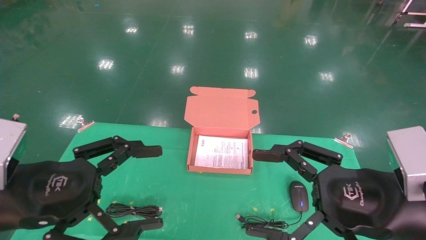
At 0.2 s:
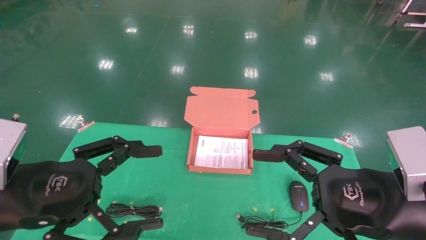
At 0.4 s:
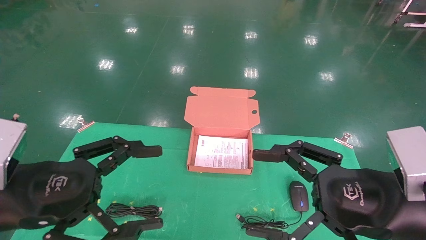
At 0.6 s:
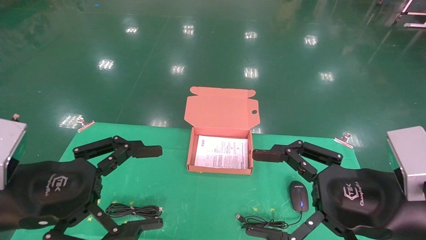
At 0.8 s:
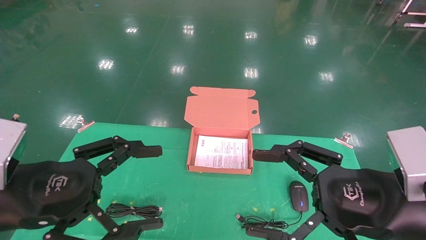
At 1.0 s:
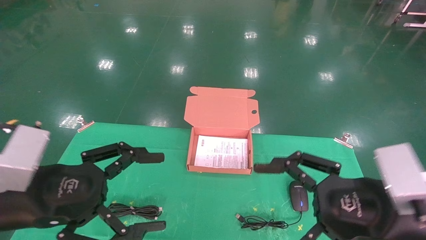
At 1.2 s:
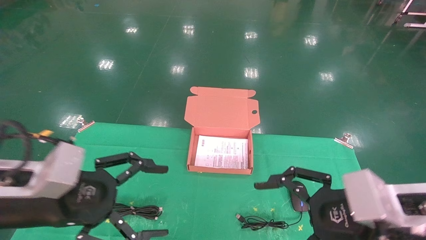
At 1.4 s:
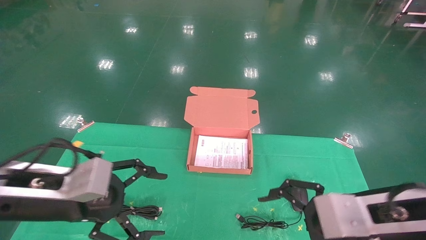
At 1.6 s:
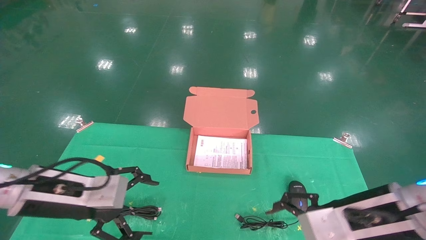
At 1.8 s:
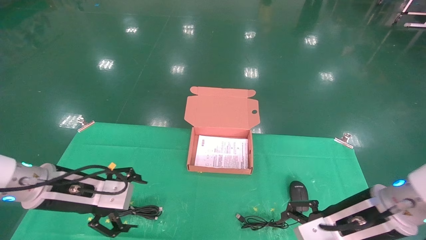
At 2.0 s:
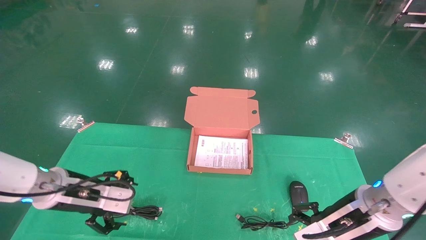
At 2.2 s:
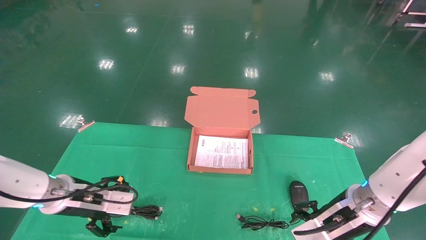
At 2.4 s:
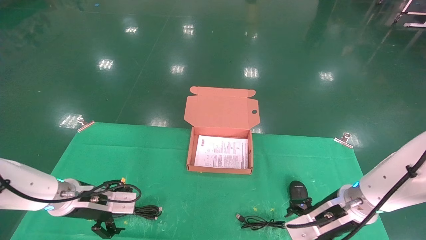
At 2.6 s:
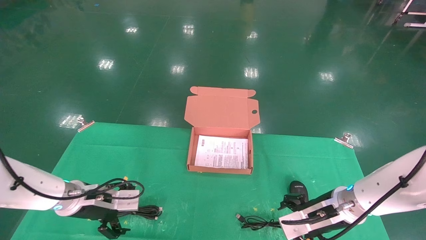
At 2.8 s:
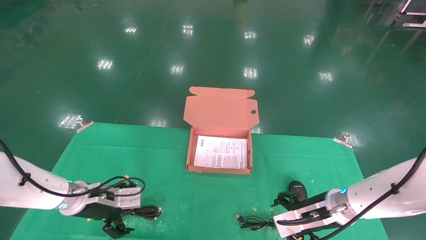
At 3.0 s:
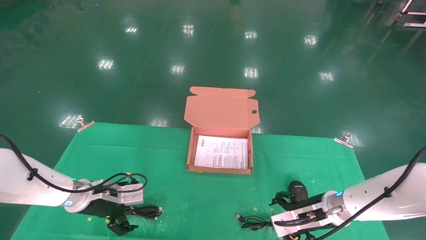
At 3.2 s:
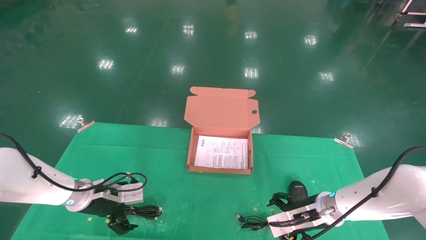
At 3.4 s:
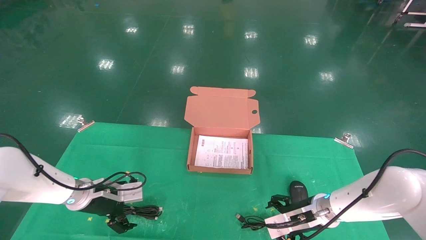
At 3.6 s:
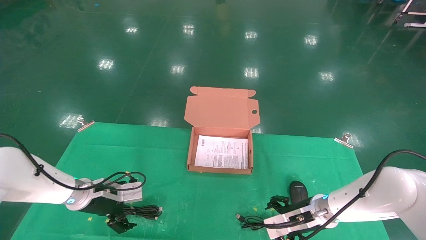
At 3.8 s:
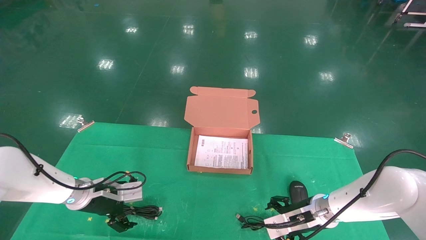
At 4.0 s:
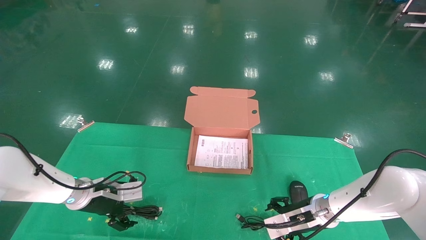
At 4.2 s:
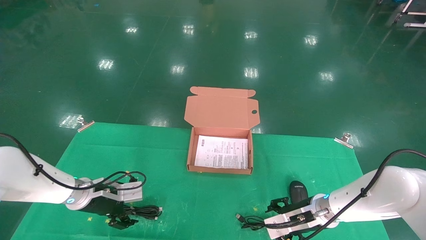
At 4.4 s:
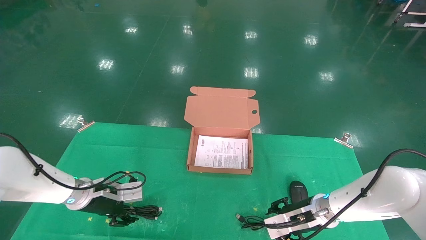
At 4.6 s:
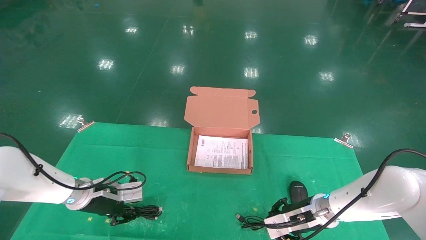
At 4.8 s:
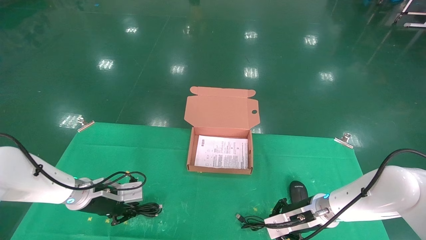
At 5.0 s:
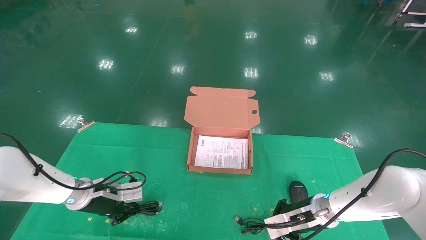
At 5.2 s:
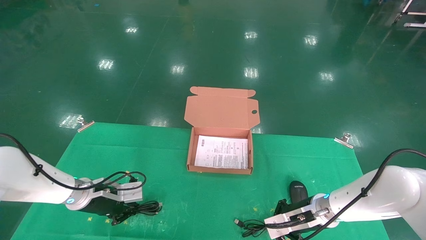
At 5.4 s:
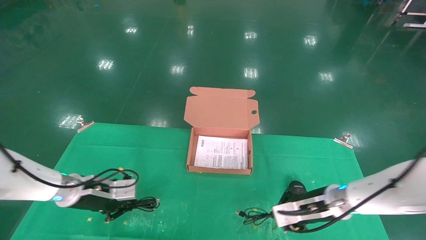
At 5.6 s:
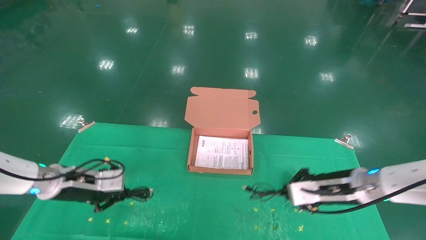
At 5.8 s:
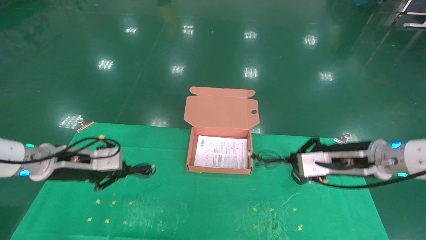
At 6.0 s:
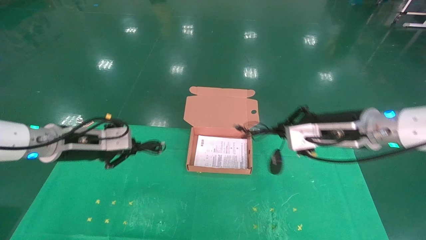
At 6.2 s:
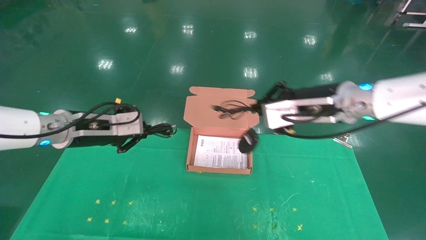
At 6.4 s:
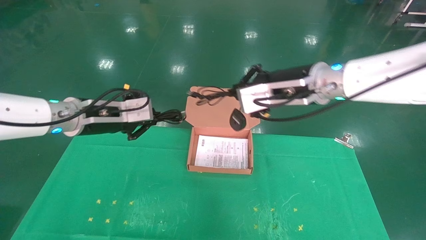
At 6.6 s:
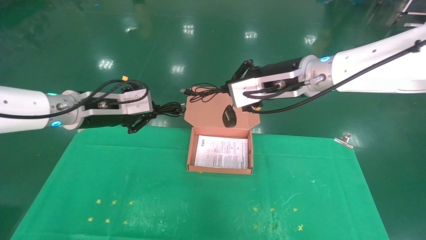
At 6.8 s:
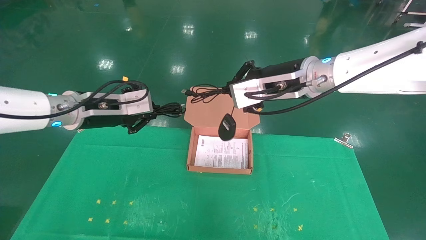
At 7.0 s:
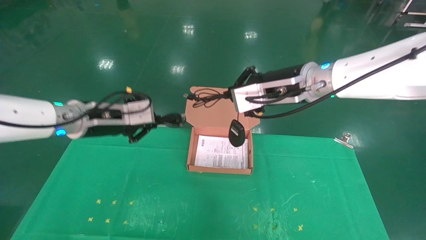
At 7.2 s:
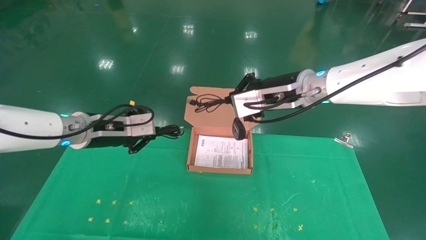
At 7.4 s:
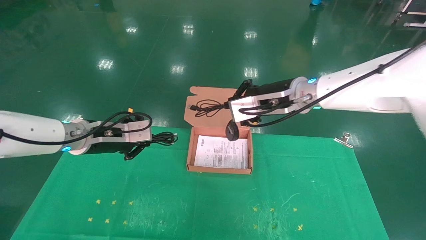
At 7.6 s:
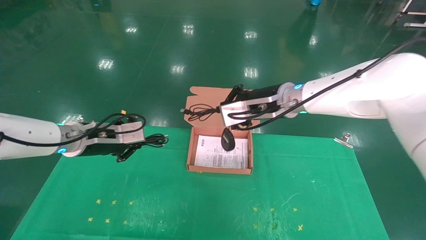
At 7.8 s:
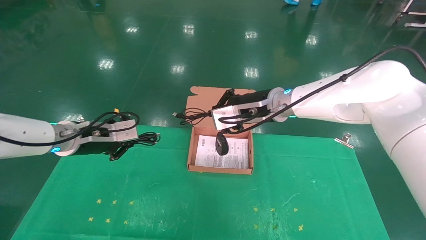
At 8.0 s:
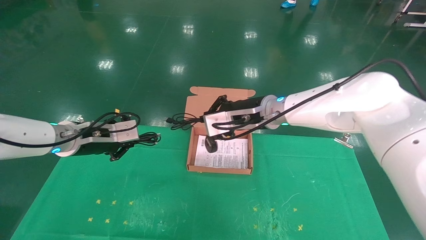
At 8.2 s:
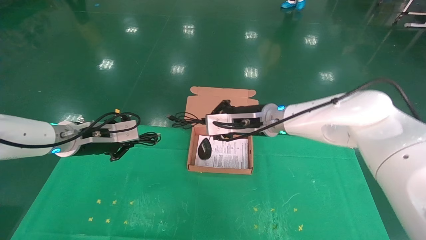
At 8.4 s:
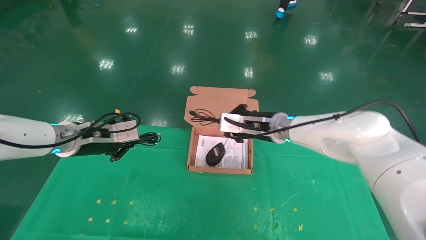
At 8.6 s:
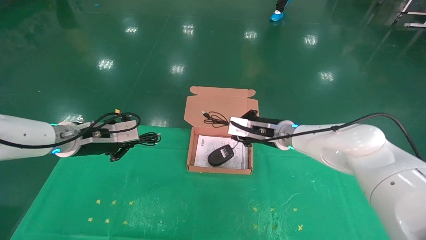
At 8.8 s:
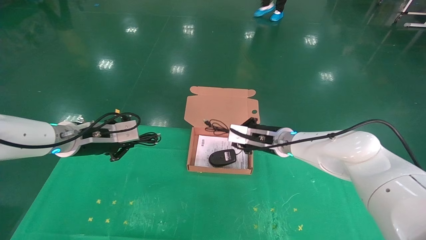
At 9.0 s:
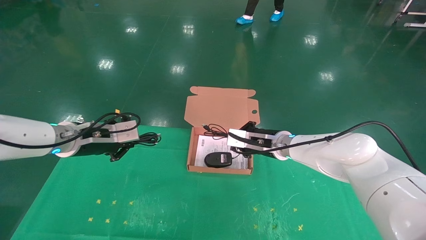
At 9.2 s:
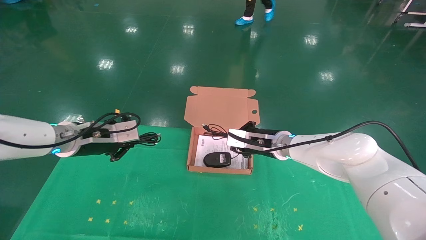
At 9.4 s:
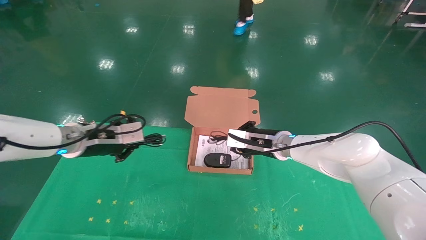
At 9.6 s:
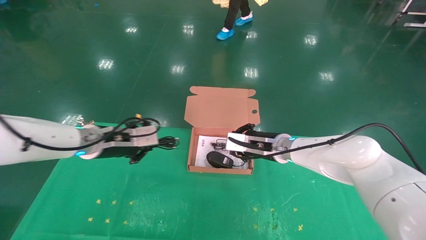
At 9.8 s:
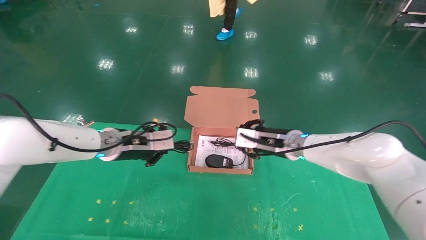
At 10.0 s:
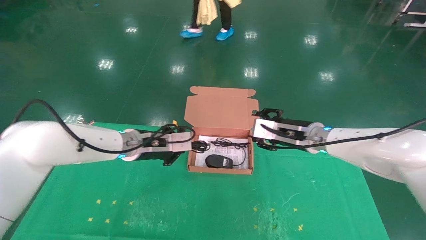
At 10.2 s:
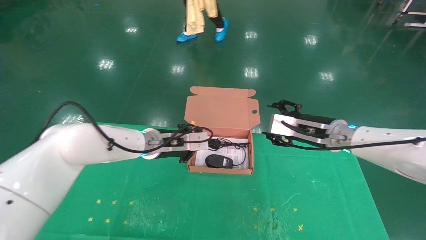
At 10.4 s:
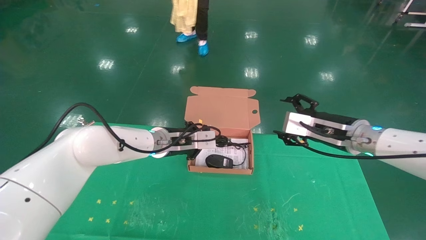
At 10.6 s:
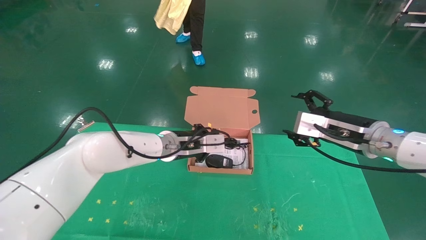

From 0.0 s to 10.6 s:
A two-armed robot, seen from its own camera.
Task of the whole recording: grasp data cable left put into box grasp mouse right put into box.
Step, from 1.2 s to 5.0 s: Grab and pick up both the mouse and power cord from the accessory packaging area at the same time.
From 0.0 s to 1.6 s: The two grippers go some 5 cm forward.
From 1.6 s to 3.0 s: The grippers both shift forward and downward by approximately 15 cm.
From 3.0 s to 4.6 s: The left gripper closes up. Meanwhile the right gripper closes its fingers.
From 4.6 s to 6.0 s: The two grippers go some 20 cm upward. The right gripper closes up. Meanwhile the left gripper closes up.
From 6.0 s to 7.6 s: The right gripper is displaced to the left and forward by approximately 15 cm.
From 7.6 s to 9.0 s: The right gripper heads downward, covering some 15 cm.
From 9.0 s to 10.6 s: The right gripper is displaced to the right, backward and upward by roughly 20 cm, and opens; the left gripper is displaced to the right by approximately 20 cm.

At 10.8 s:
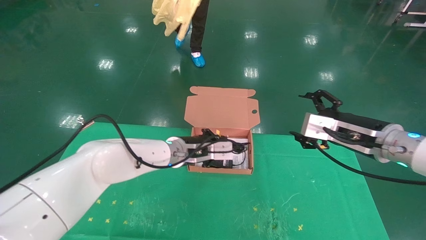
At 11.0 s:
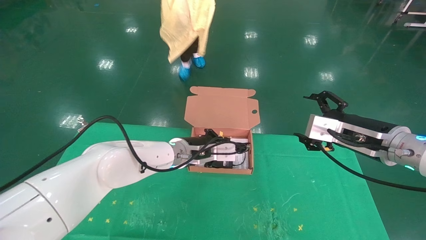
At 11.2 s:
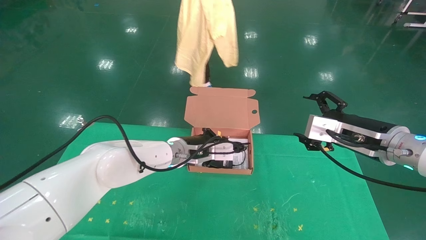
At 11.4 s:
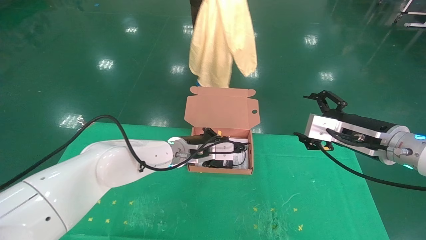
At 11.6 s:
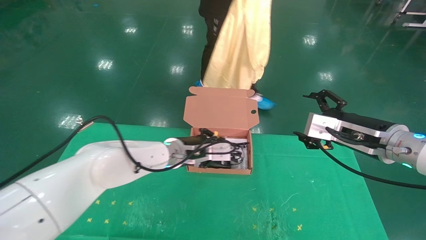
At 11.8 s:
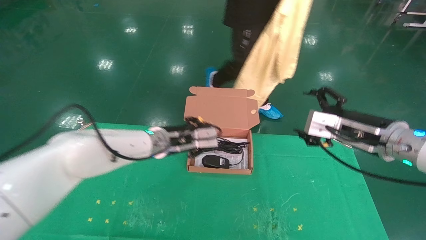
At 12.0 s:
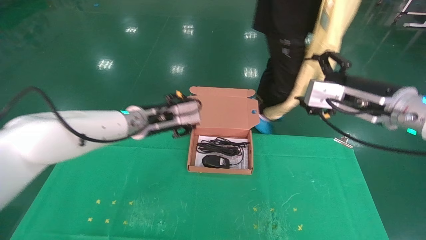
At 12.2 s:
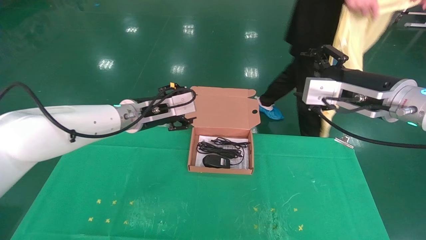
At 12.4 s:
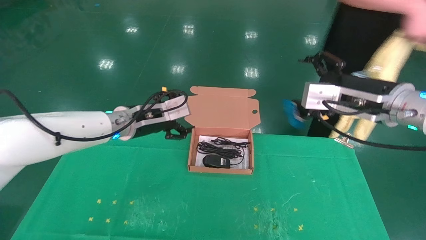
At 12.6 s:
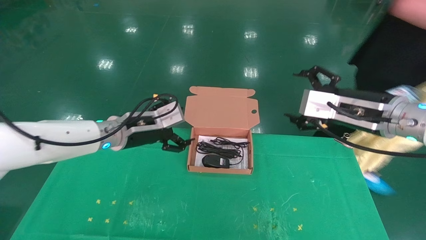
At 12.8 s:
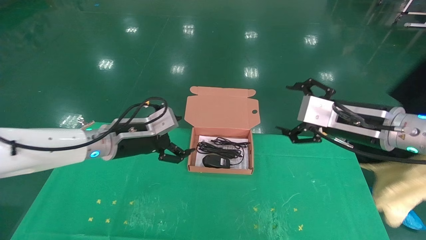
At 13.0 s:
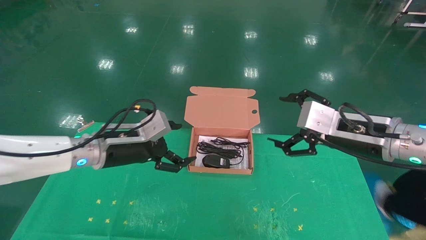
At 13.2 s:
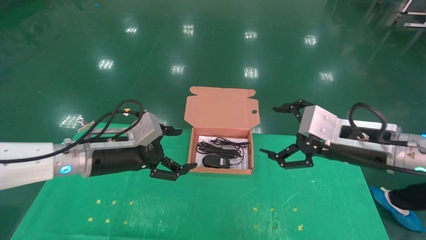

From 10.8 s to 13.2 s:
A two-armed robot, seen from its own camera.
Task of the whole recording: grasp data cable left put into box grasp mouse right put into box.
From 10.8 s to 12.0 s: The left gripper heads to the left, covering roughly 5 cm.
From 12.0 s to 13.2 s: The right gripper moves about 5 cm, while the left gripper moves to the left and backward, approximately 10 cm, and opens up.
